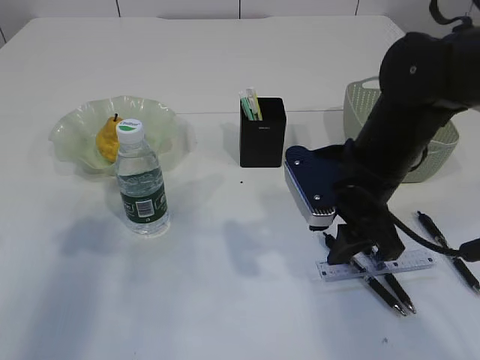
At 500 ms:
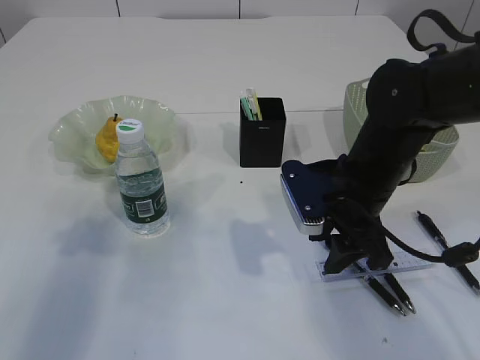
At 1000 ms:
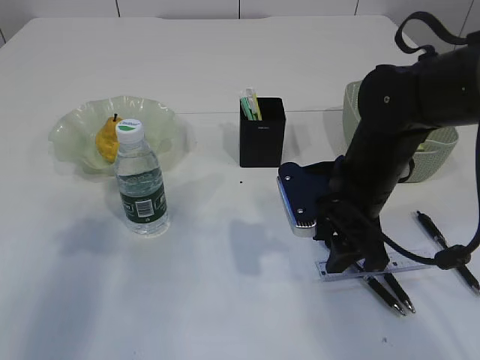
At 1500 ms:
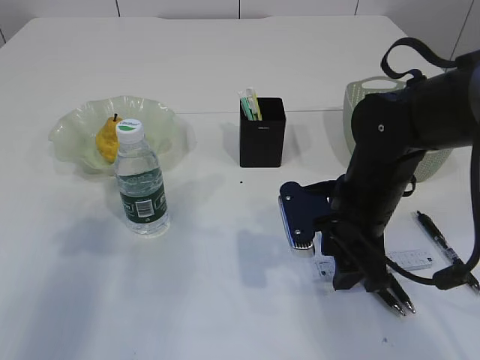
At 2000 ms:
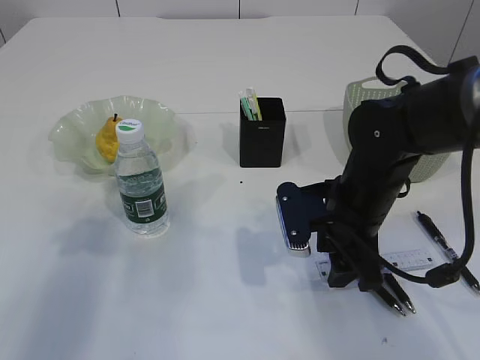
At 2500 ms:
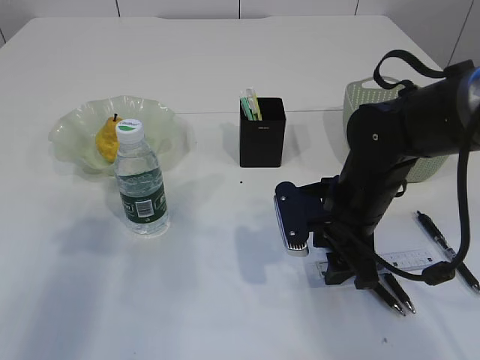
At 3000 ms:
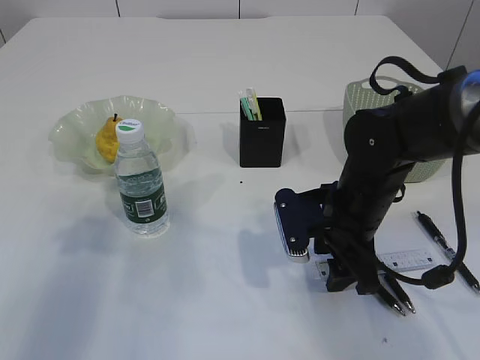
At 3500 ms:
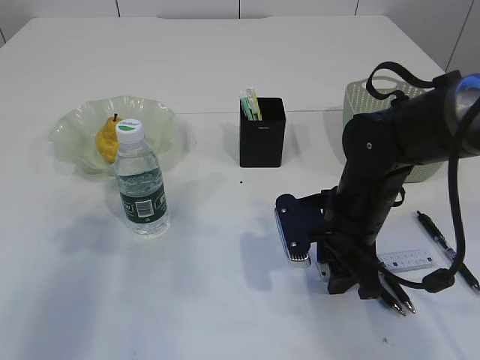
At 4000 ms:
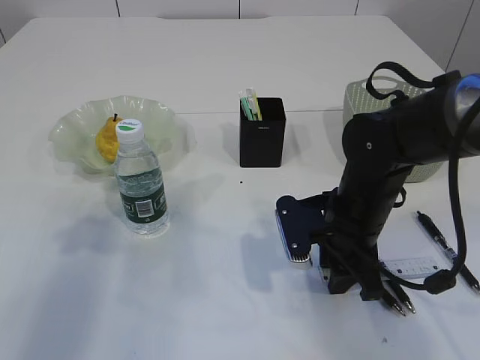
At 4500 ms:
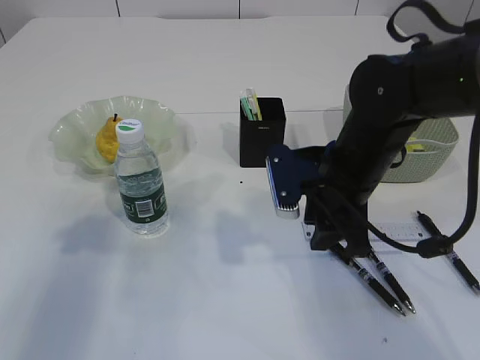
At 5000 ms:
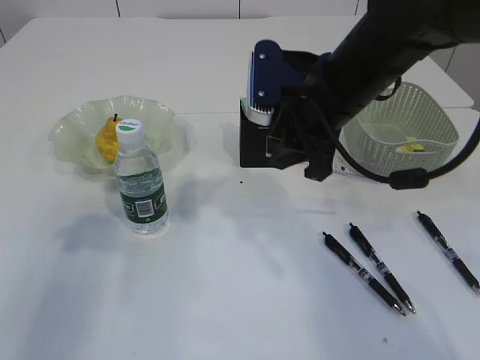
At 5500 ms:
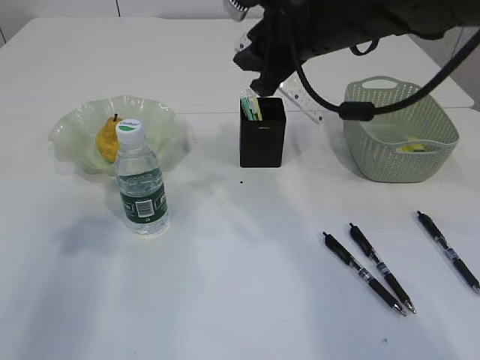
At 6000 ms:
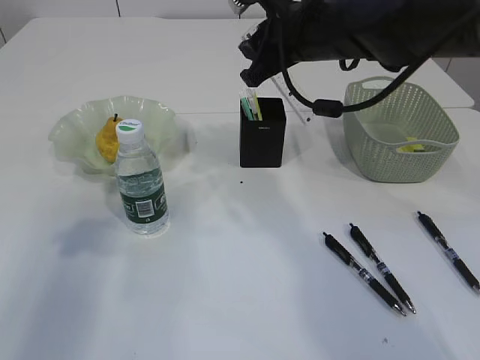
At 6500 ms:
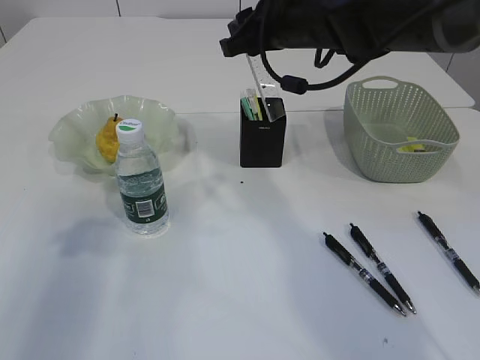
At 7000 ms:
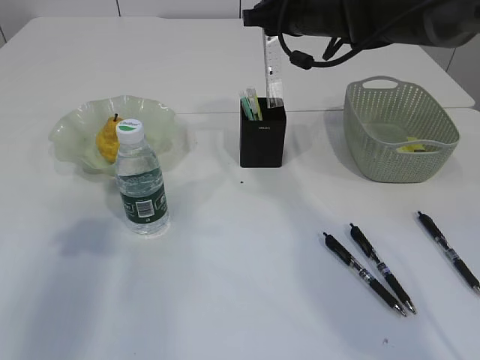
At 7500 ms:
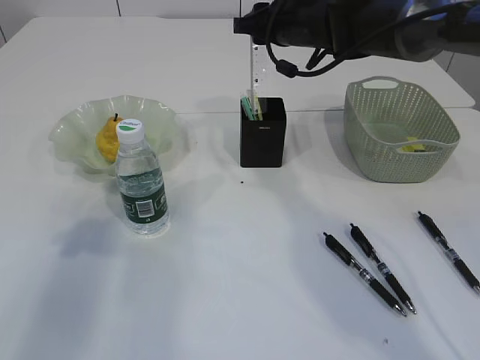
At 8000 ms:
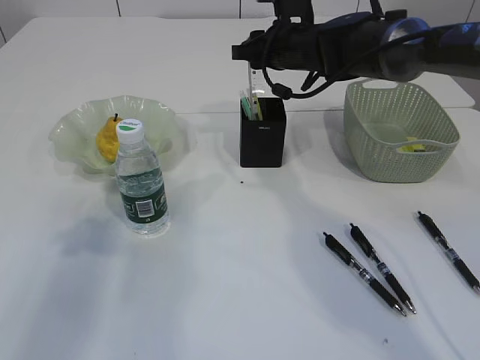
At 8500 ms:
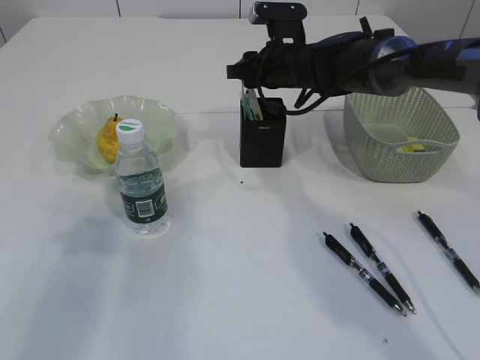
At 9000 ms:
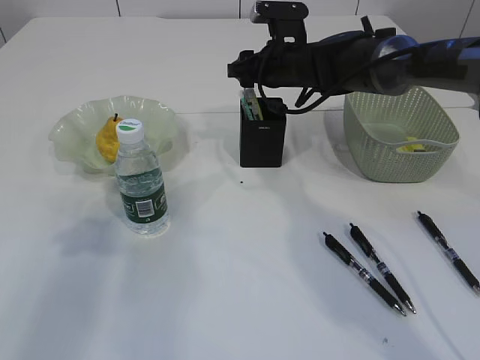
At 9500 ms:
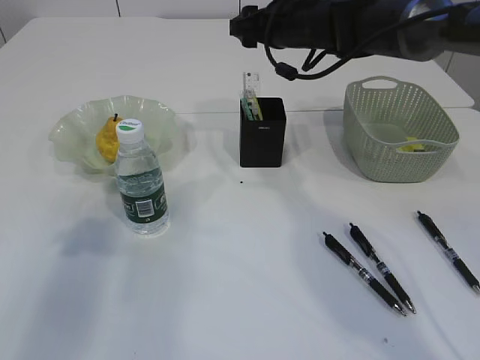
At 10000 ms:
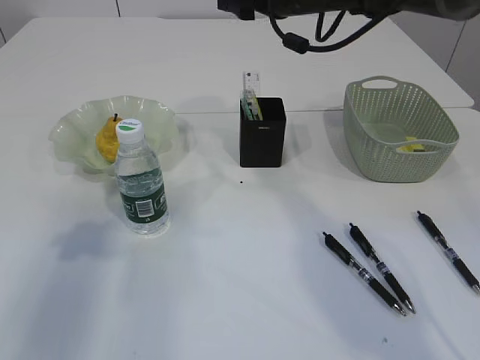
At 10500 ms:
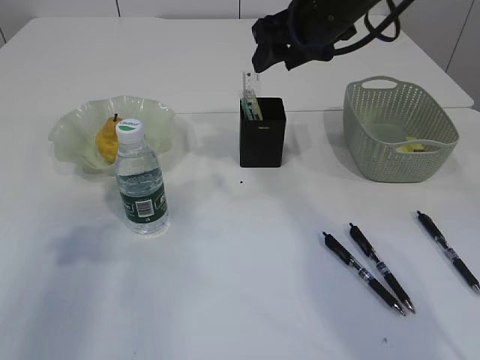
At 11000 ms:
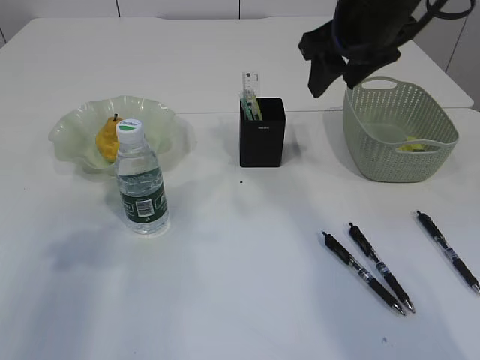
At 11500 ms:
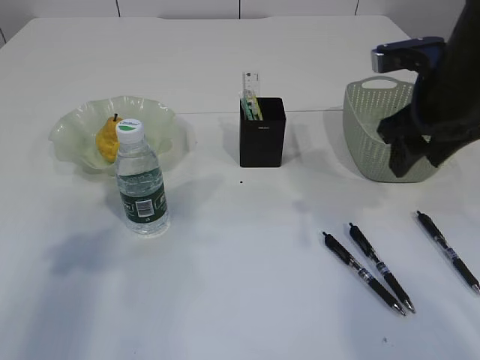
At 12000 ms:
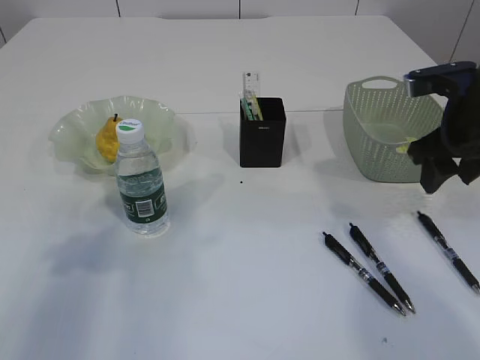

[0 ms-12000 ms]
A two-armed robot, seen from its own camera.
Step, 0 ms to 4000 ms: pick up the ruler.
Step, 4500 ms to 9000 ms: Place the ruler into the pen holder.
0 ms to 2000 ms: The right gripper heads downward, covering roughly 5 cm.
2000 ms to 4000 ms: The grippers move only a little.
4000 ms to 6000 ms: The right gripper is displaced upward and forward by about 20 cm.
6000 ms to 8000 ms: The right gripper is displaced forward and downward by some 10 cm.
8000 ms to 10000 ms: The right gripper heads upward, covering about 10 cm, and opens up.
10000 ms to 12000 ms: The right gripper shifts approximately 25 cm to the right, backward and downward.

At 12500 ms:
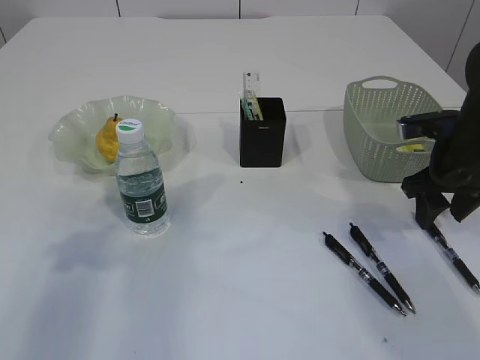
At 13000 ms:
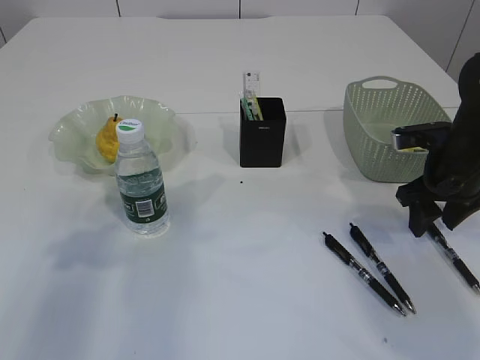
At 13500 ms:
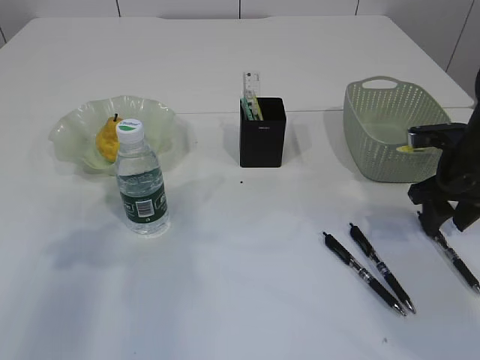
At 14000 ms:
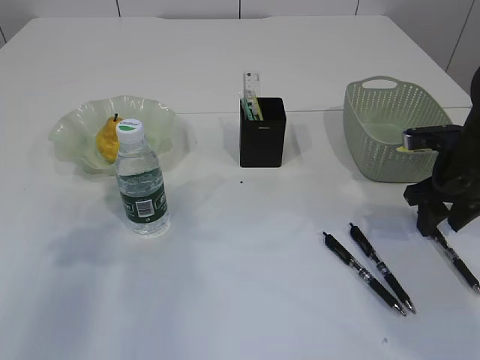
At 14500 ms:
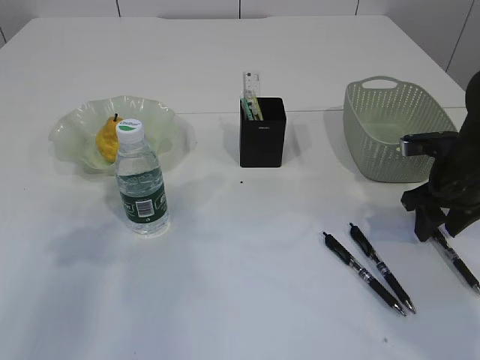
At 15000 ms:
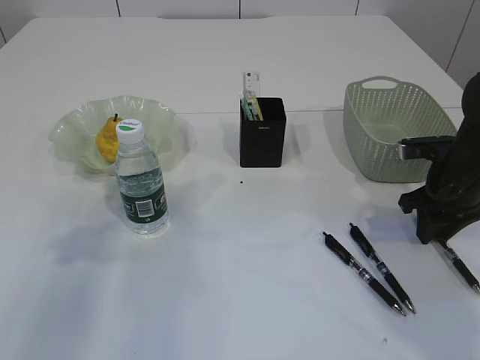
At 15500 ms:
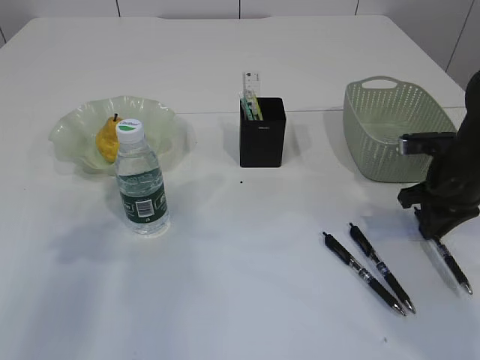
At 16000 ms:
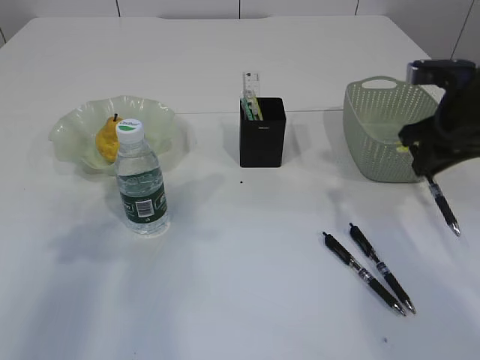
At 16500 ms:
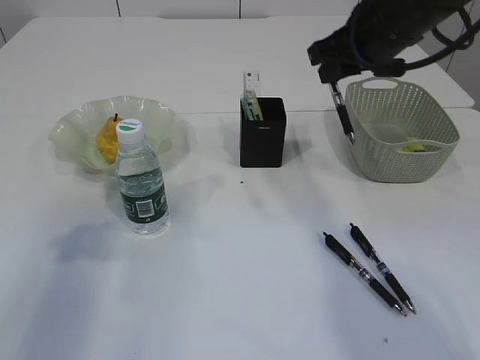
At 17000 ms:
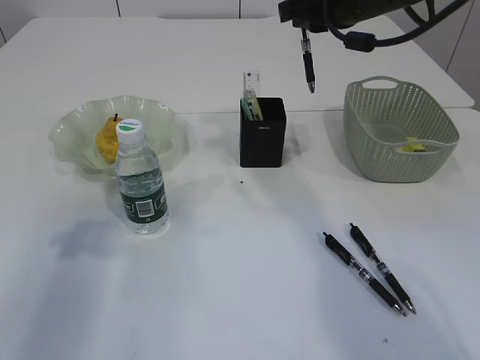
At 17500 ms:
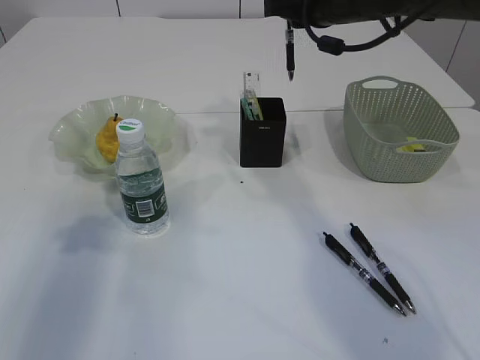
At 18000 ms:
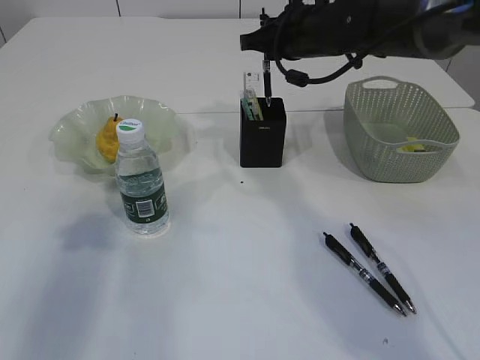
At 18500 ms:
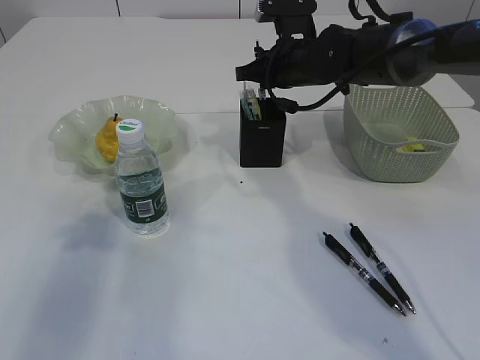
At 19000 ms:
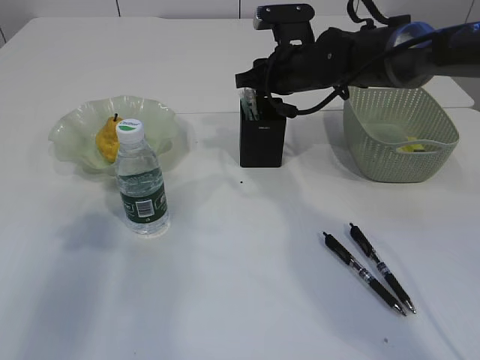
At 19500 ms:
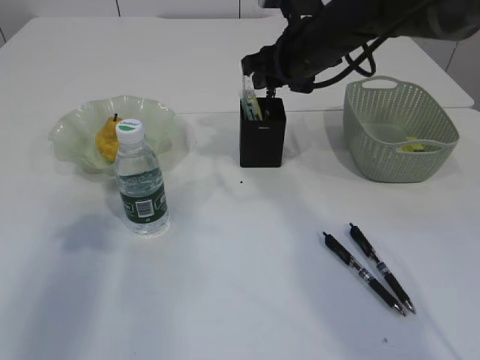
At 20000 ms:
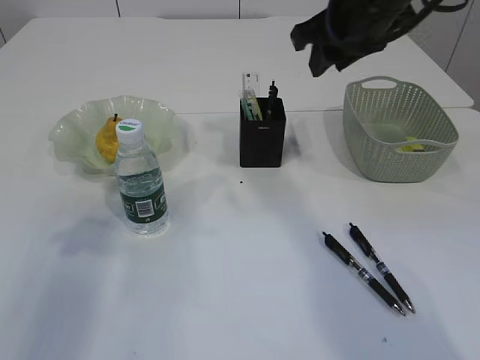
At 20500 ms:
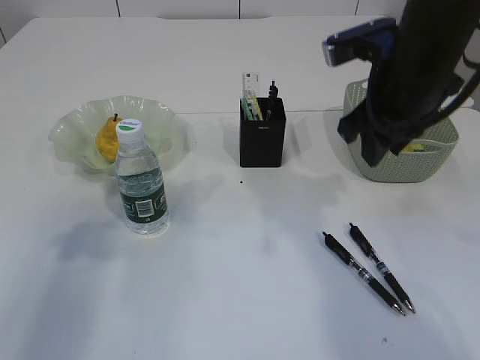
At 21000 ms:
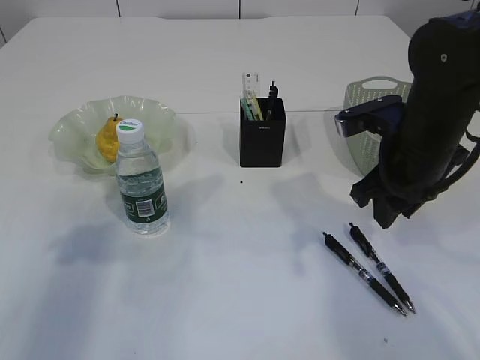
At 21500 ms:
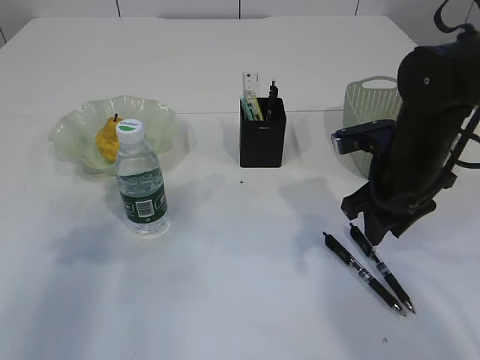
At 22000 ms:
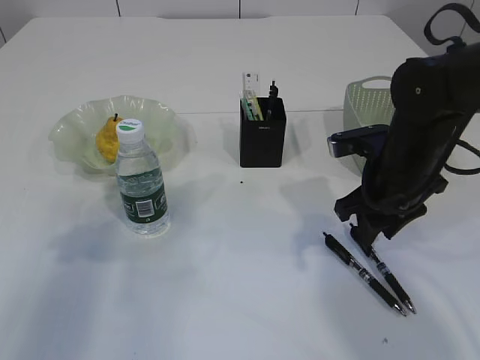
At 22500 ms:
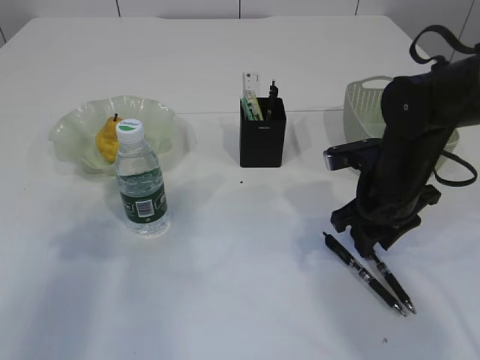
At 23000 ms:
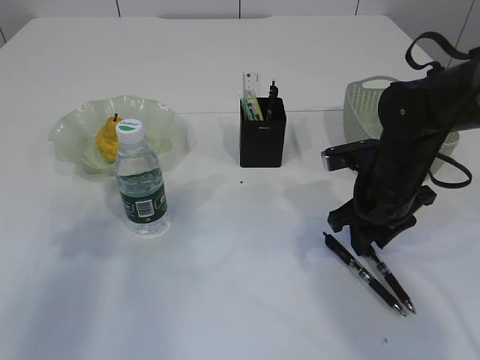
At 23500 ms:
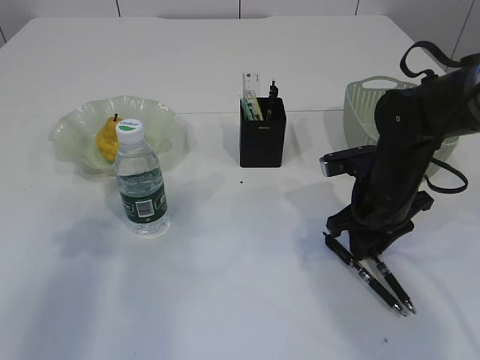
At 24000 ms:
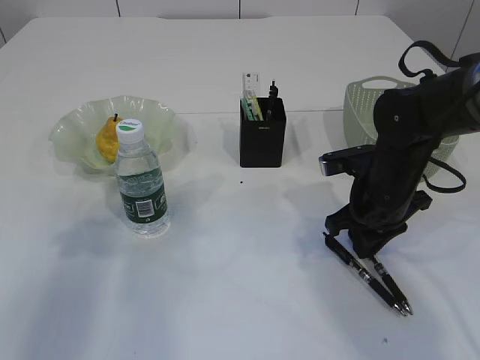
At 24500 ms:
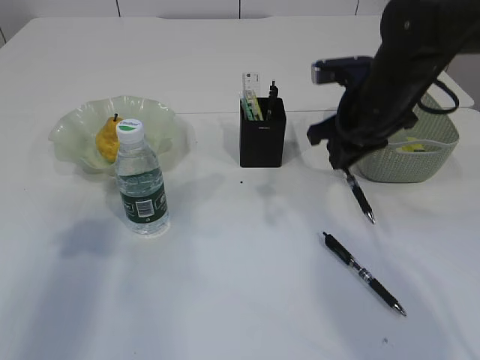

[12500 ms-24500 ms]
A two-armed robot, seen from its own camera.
Step, 12500 ms to 15500 ms: Pick up the pen with right arm.
Step, 16000 ms to 19500 ms: Place the pen into the pen holder.
Step, 20000 ms to 24000 ms: Pick up the pen with right arm.
12500 ms to 14500 ms: The grippers stay close to where they were, moving slightly.
14500 ms to 16500 ms: The right gripper travels upward and to the left by approximately 20 cm, and closes.
16500 ms to 18500 ms: The right gripper goes roughly 15 cm forward, downward and to the left.
18500 ms to 20500 ms: The right gripper travels backward, upward and to the right by approximately 20 cm, and opens its fingers.
20500 ms to 22500 ms: The right gripper goes about 15 cm downward.
22500 ms to 24500 ms: The right gripper moves upward, roughly 5 cm, and closes its fingers.

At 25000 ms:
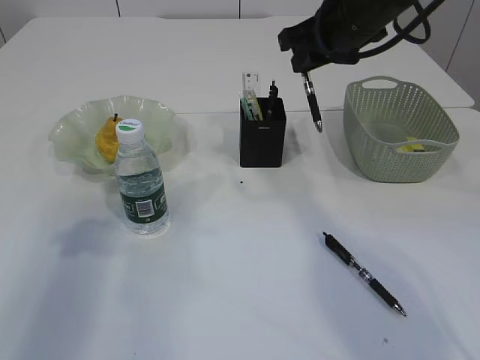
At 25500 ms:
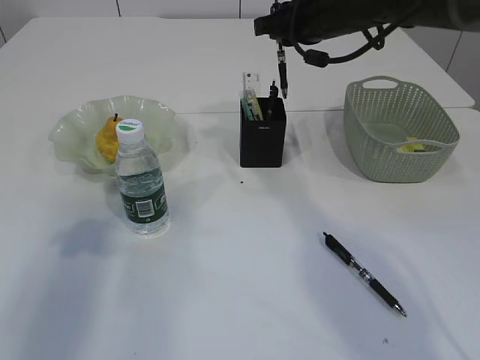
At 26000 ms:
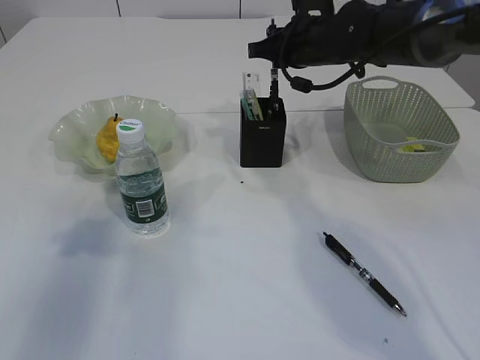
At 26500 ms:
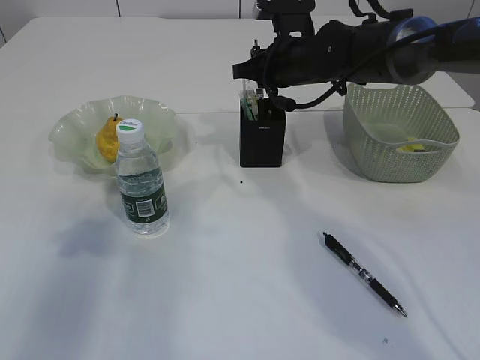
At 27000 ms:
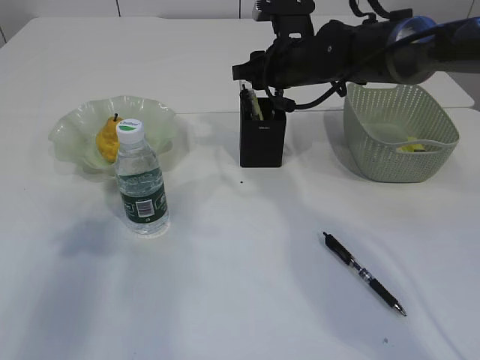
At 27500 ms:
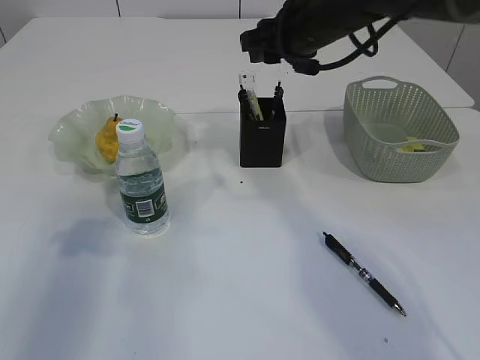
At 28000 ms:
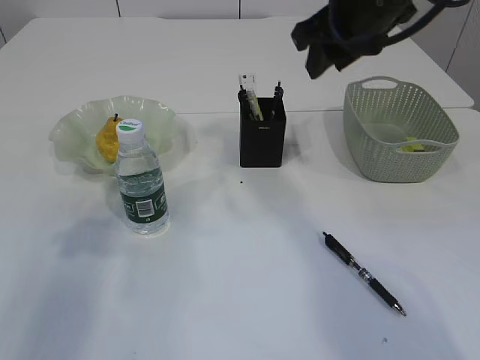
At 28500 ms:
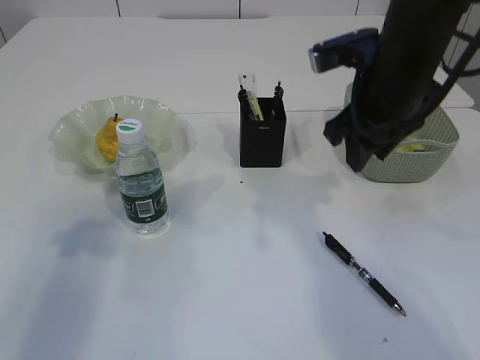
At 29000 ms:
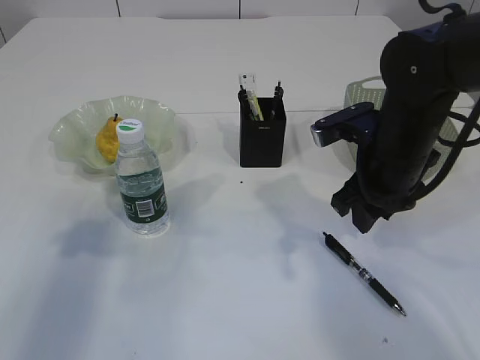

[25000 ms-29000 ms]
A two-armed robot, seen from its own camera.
Step, 25000 ms to 27500 ms: Place the pen into the pen holder.
25000 ms to 27000 ms: The right gripper shifts approximately 10 cm downward and forward, and opens up.
27000 ms to 29000 ms: The right gripper shifts roughly 15 cm backward and to the right.
